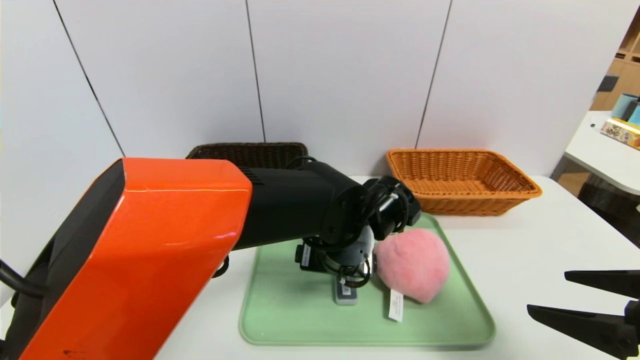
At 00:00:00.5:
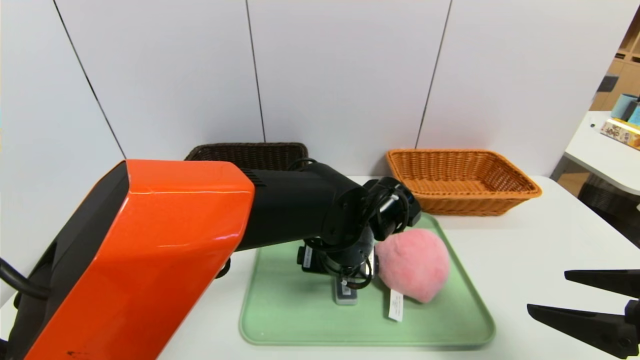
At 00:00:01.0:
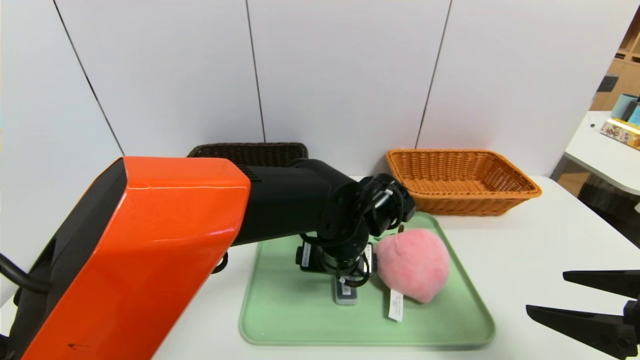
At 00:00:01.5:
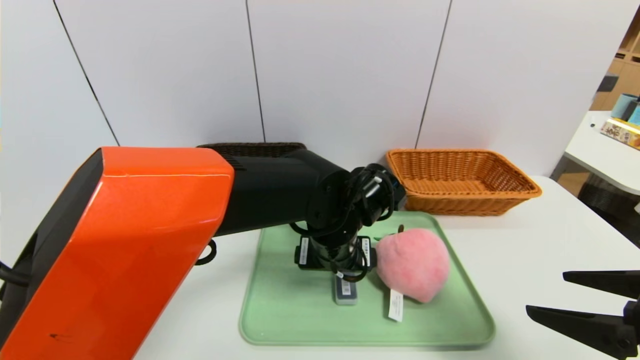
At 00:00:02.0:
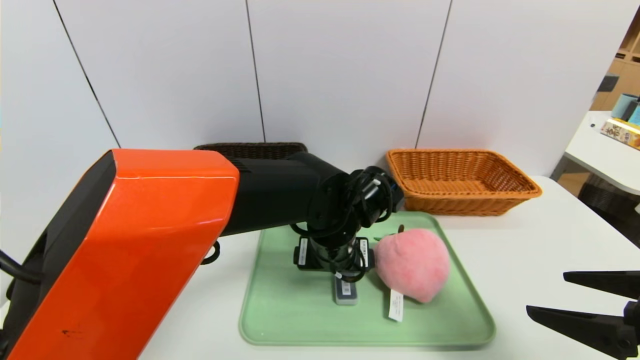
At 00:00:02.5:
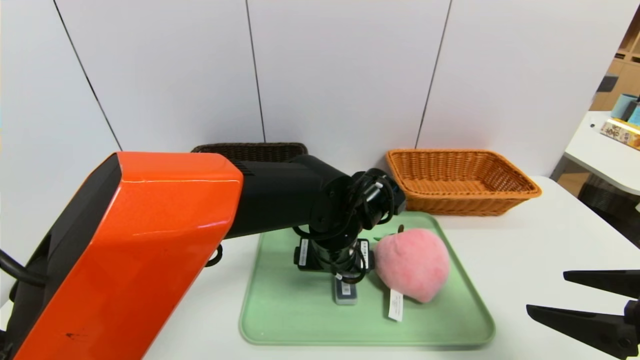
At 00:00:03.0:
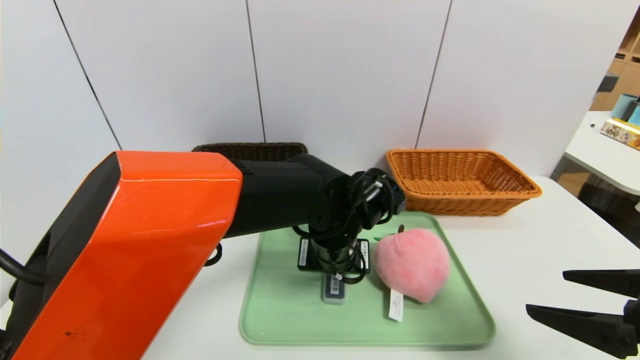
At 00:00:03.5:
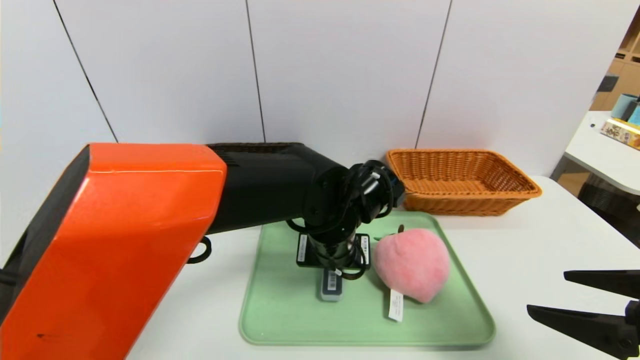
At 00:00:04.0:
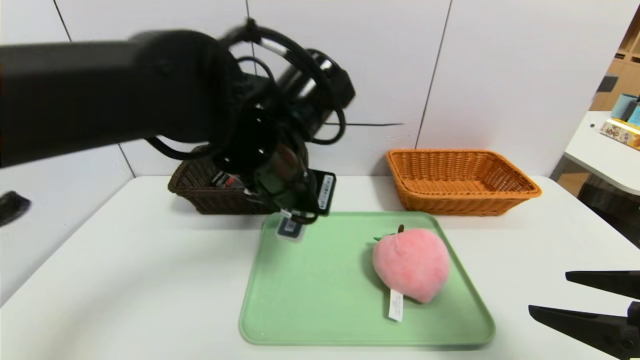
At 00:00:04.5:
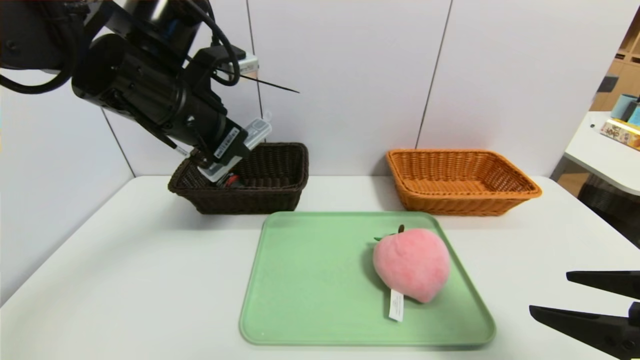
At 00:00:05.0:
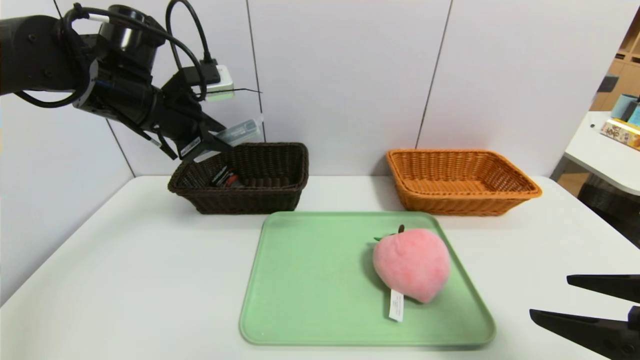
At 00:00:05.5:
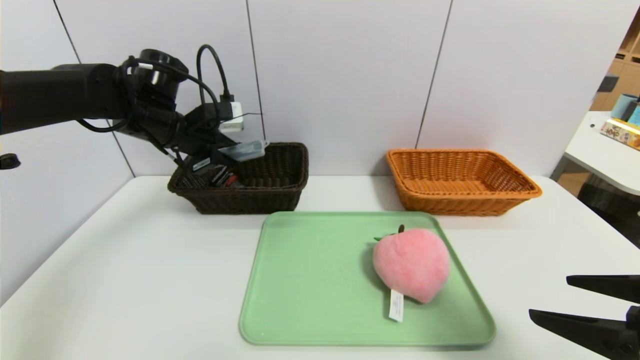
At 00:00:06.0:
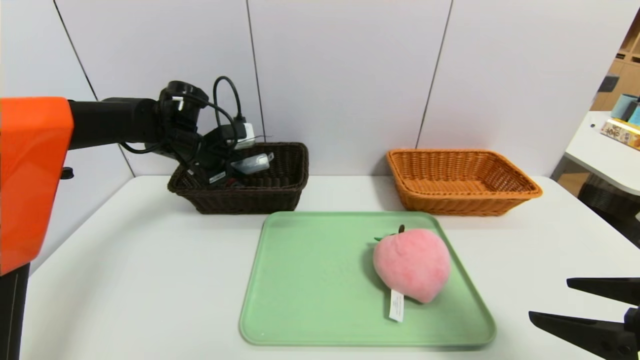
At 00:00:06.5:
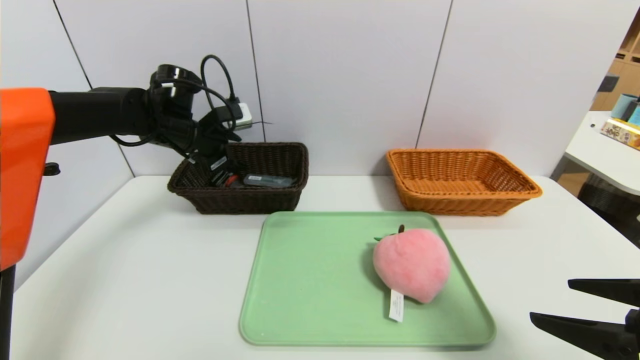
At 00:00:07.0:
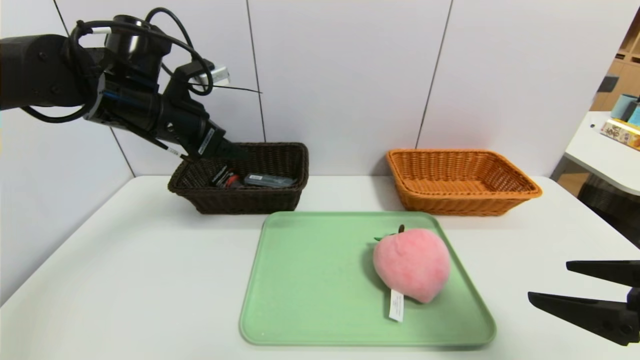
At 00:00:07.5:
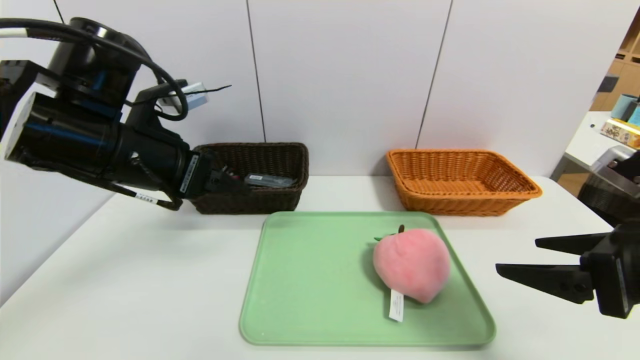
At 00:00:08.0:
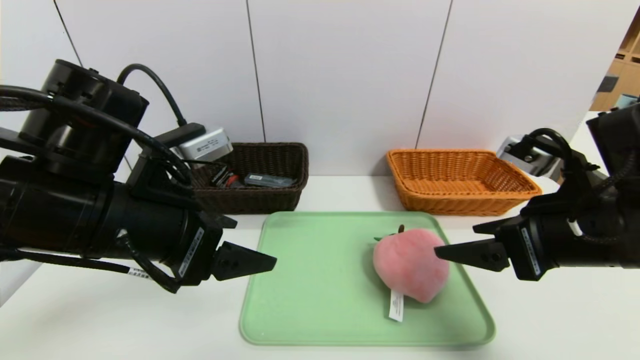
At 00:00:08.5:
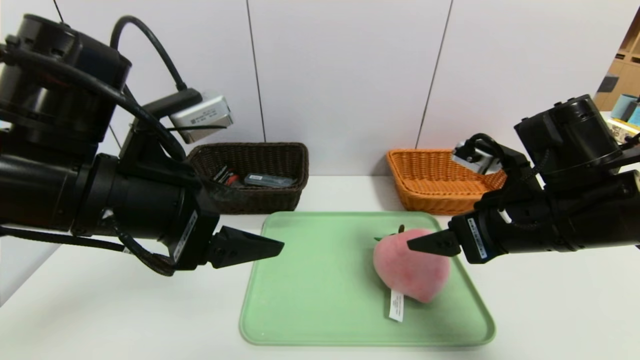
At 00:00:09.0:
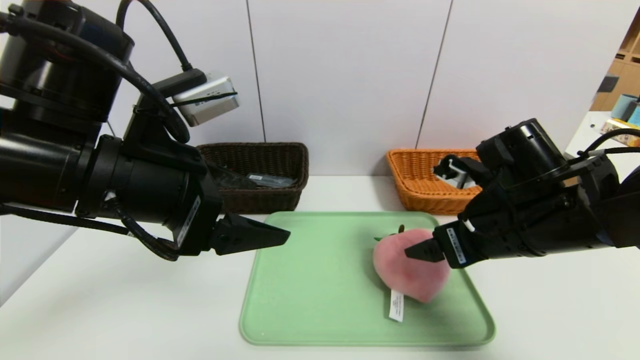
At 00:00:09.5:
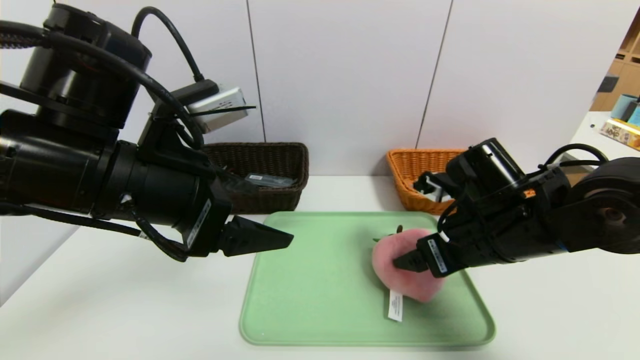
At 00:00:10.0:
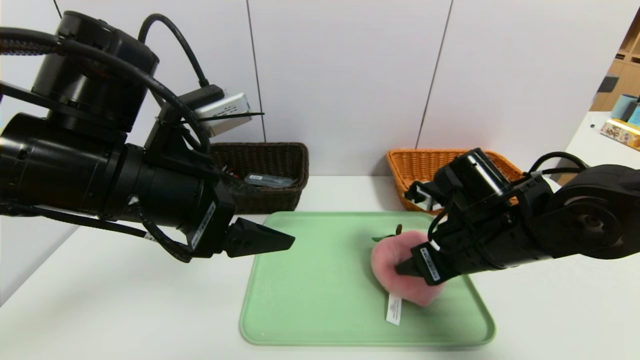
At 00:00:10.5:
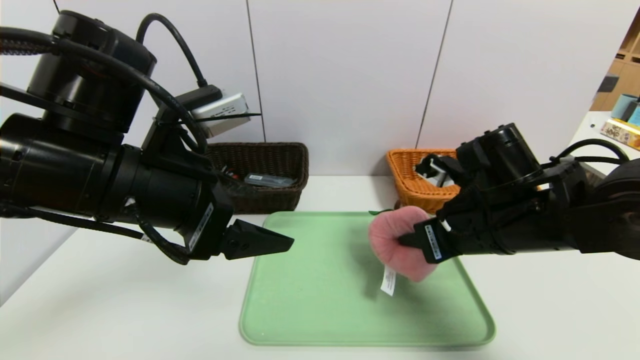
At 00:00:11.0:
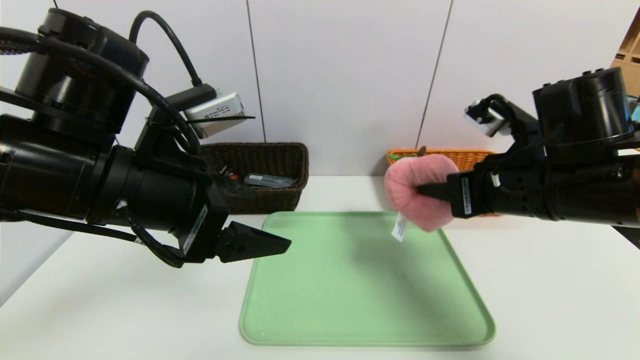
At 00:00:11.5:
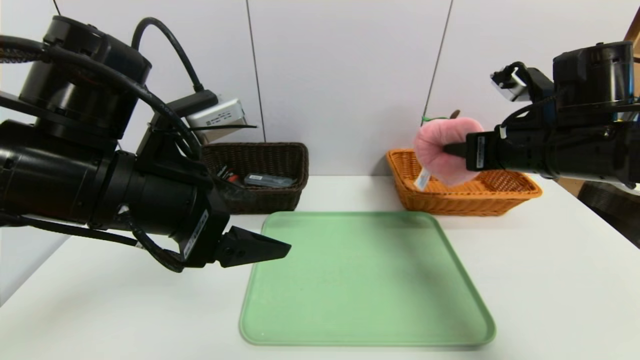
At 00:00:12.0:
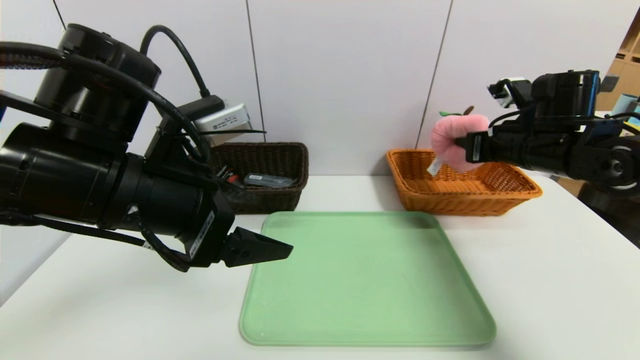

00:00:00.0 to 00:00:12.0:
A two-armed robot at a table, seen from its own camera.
Task of the whole recording: place the food in the right basket with the right gripper, and place the non food items in the left basket with the left gripper.
Step, 00:00:00.0 to 00:00:06.5: Grasp the compass and put it in the left basket.
00:00:00.0 to 00:00:02.0: The grippers make only small movements.
00:00:02.0 to 00:00:04.0: The left gripper heads upward and to the left, covering roughly 15 cm, and closes up.
00:00:04.0 to 00:00:06.0: The left gripper moves forward and to the left, about 25 cm.
00:00:06.0 to 00:00:08.0: The left gripper goes some 25 cm backward, and opens; the right gripper is displaced forward and to the left by some 10 cm.
00:00:08.0 to 00:00:10.0: The right gripper goes some 10 cm downward, forward and to the left, and closes.
00:00:10.0 to 00:00:12.0: The right gripper travels to the right, forward and upward by approximately 15 cm, and closes its fingers.

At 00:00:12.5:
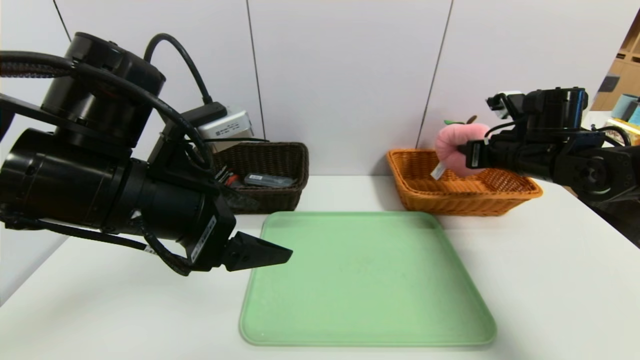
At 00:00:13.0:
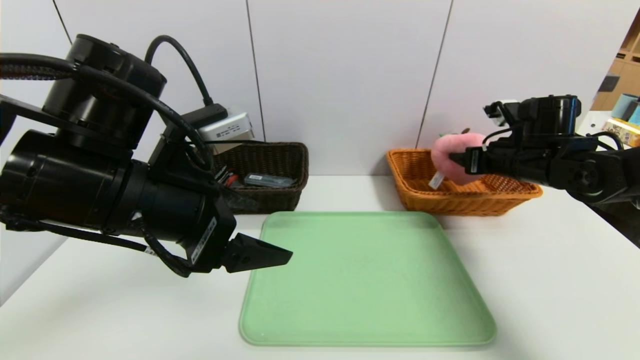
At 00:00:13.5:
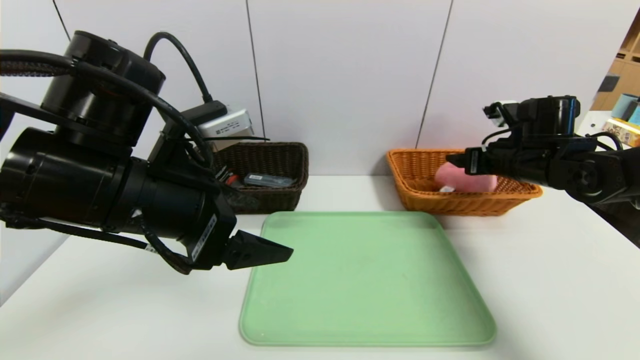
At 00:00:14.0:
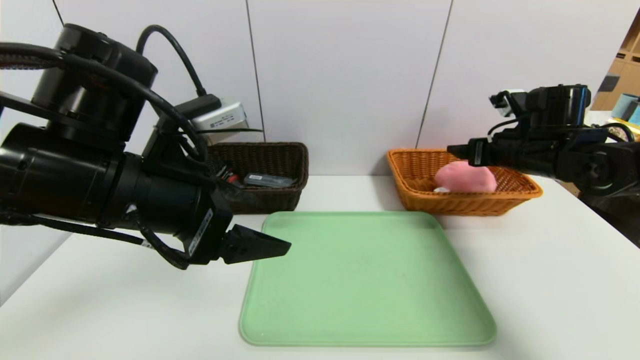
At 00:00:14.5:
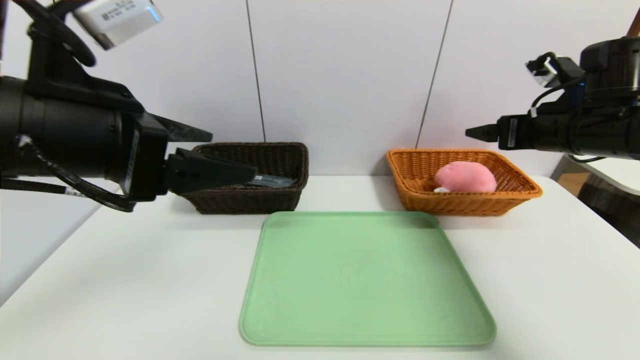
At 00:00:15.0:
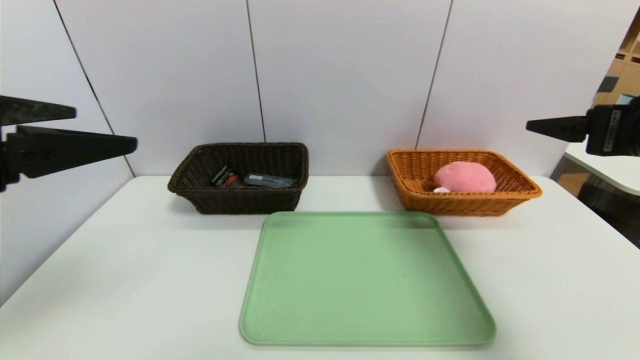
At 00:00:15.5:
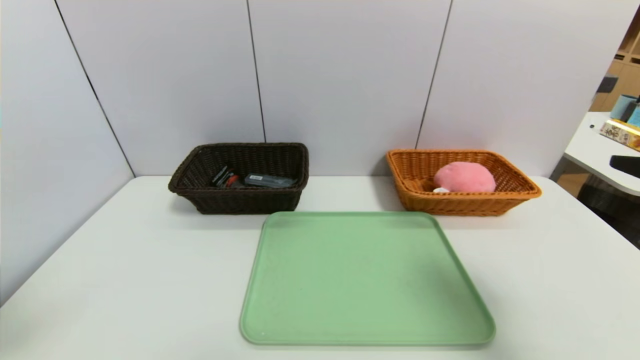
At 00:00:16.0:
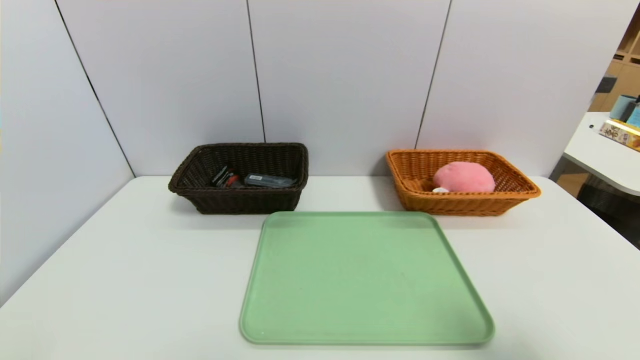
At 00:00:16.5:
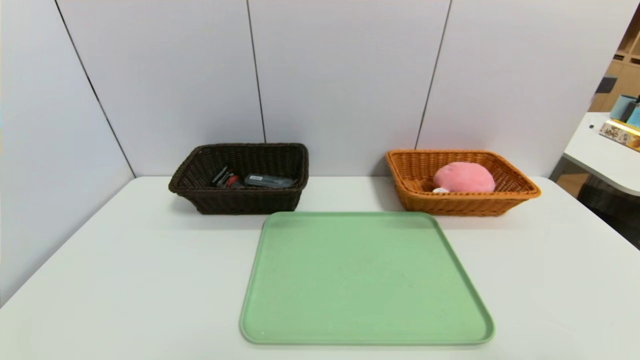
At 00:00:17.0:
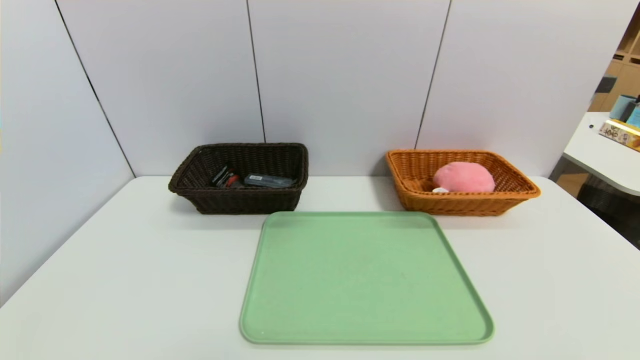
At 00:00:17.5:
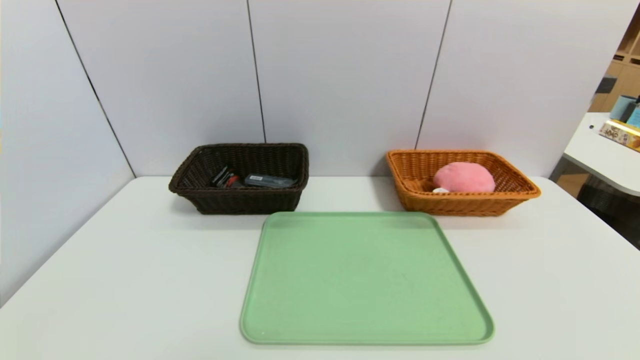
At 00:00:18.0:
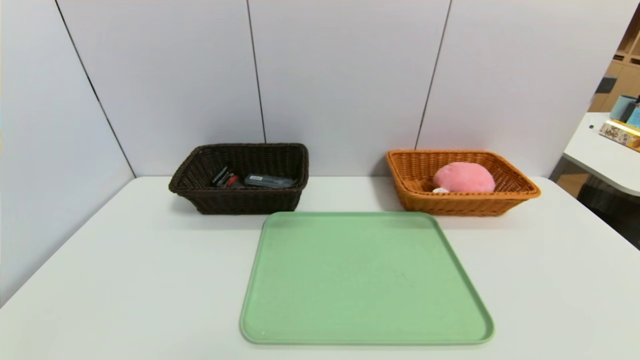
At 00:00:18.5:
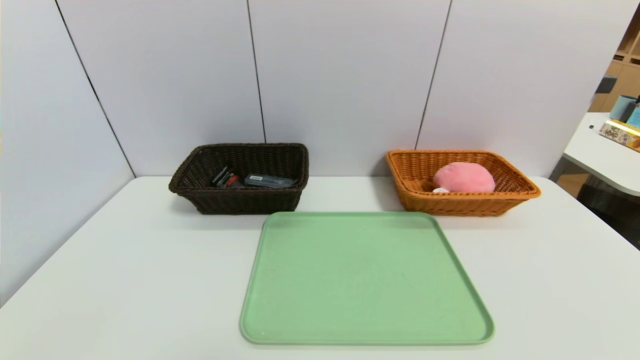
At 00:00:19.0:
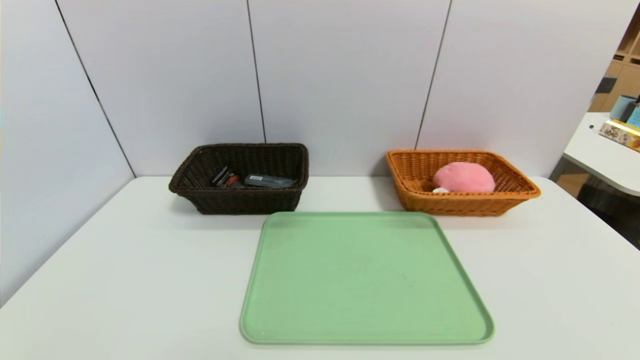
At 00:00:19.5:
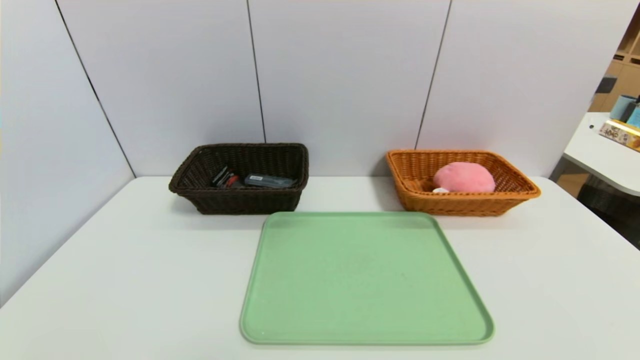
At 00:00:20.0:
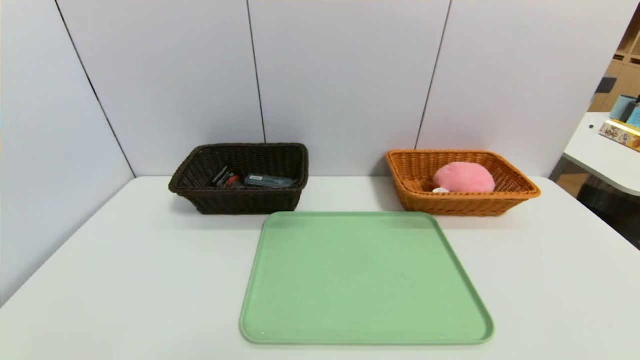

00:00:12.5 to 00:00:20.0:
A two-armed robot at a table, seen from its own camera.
Task of the whole recording: place the food in the right basket with the right gripper, and place the non food items in the left basket with the left gripper.
00:00:12.5 to 00:00:14.5: The right gripper goes about 10 cm upward and backward, and opens its fingers; the left gripper moves upward, approximately 5 cm.
00:00:14.5 to 00:00:16.5: The left gripper shifts about 25 cm backward, to the left and downward, while the right gripper shifts roughly 35 cm backward.
